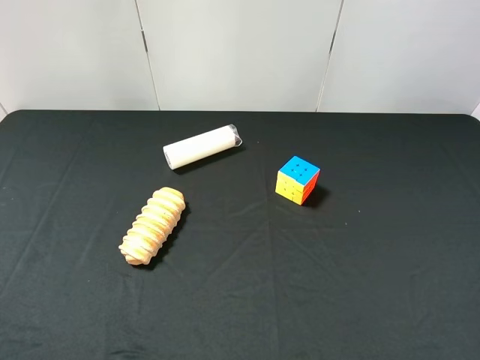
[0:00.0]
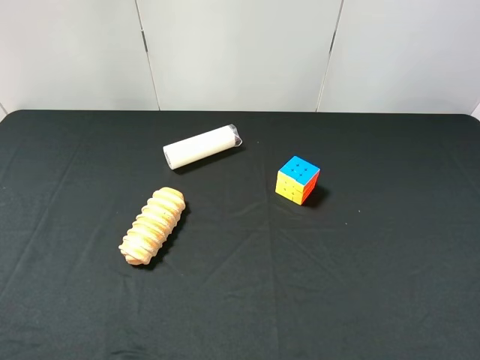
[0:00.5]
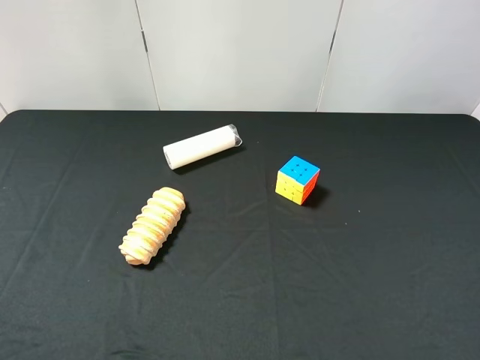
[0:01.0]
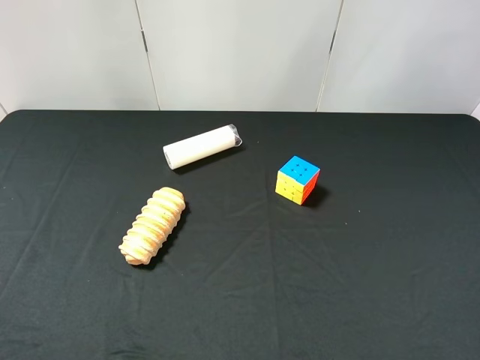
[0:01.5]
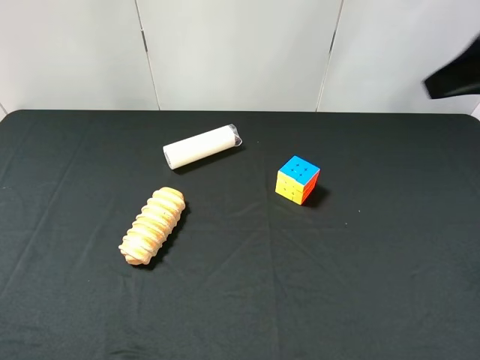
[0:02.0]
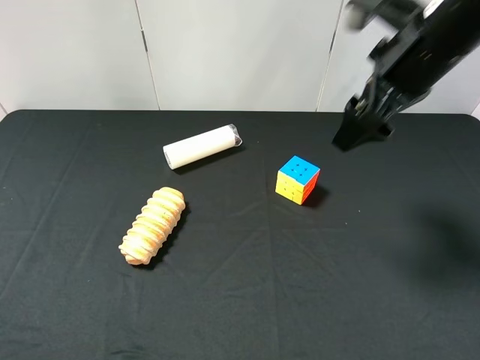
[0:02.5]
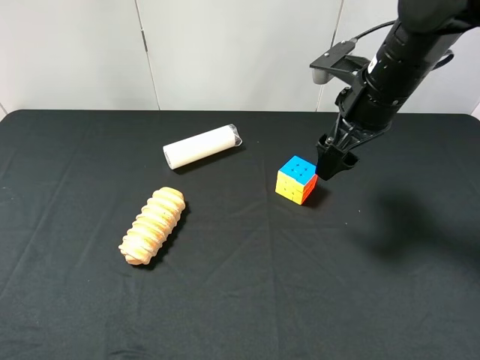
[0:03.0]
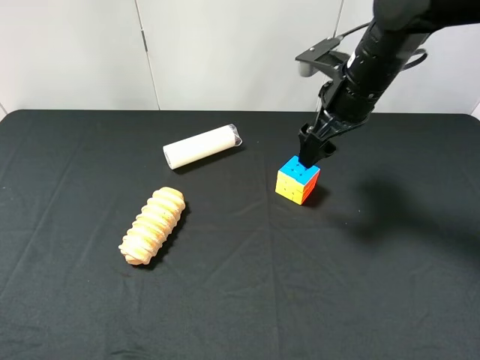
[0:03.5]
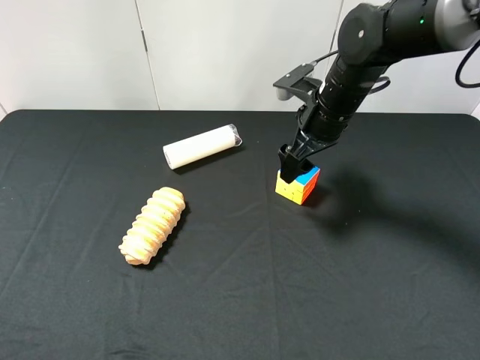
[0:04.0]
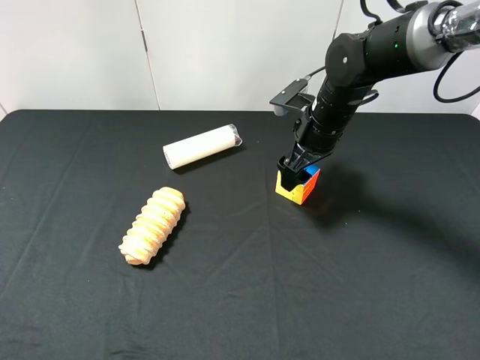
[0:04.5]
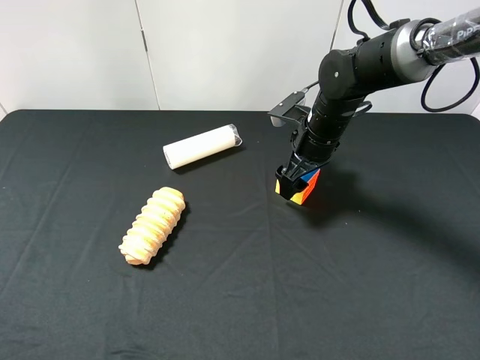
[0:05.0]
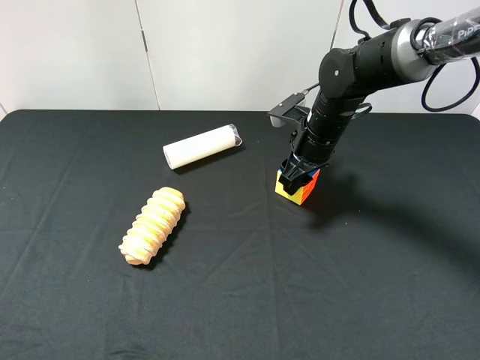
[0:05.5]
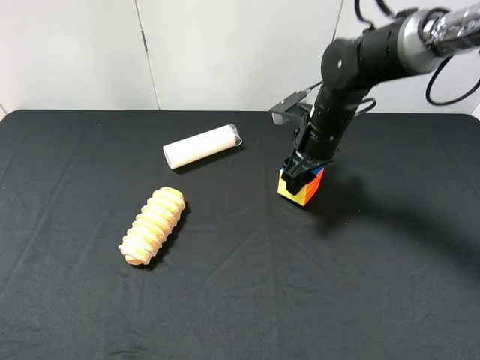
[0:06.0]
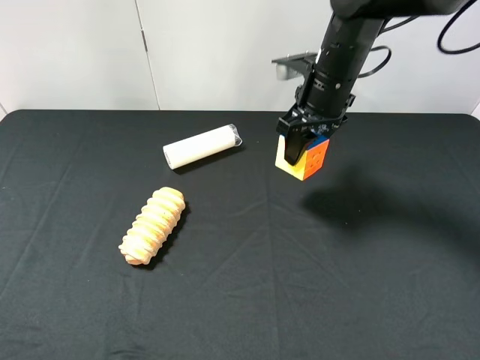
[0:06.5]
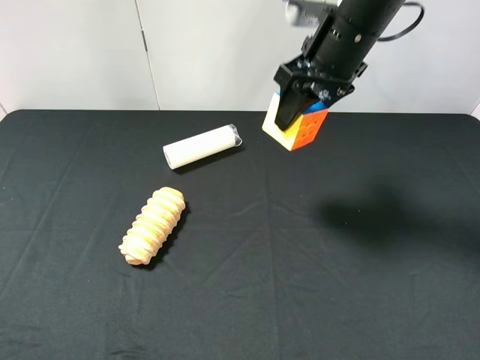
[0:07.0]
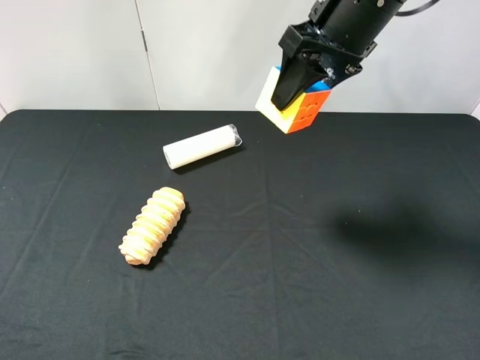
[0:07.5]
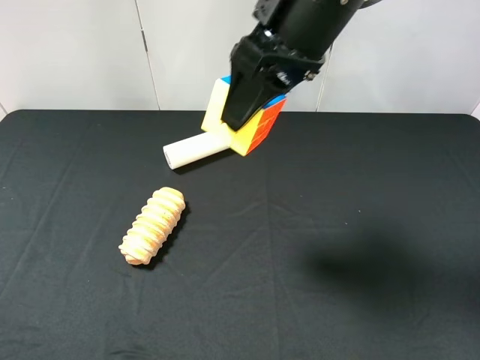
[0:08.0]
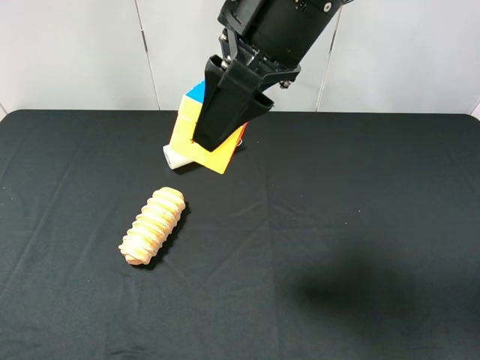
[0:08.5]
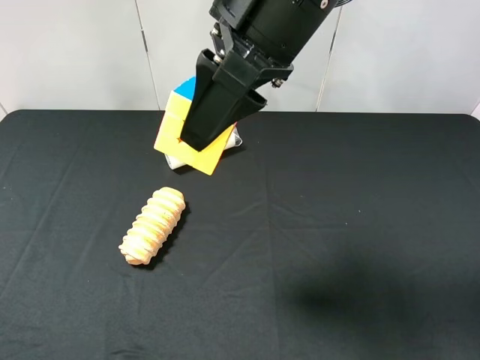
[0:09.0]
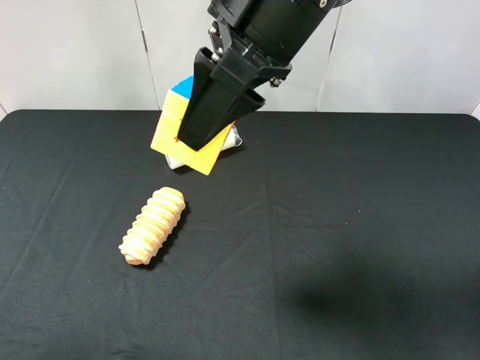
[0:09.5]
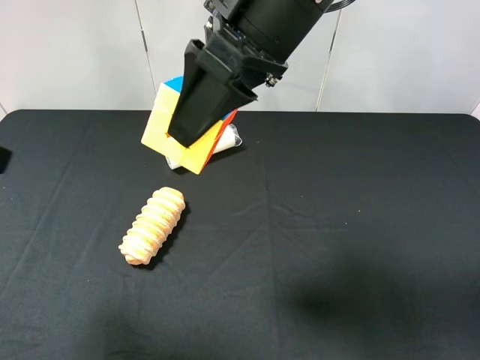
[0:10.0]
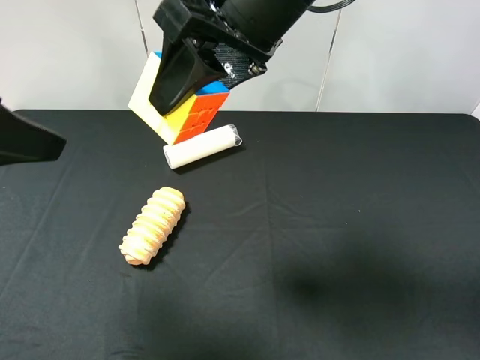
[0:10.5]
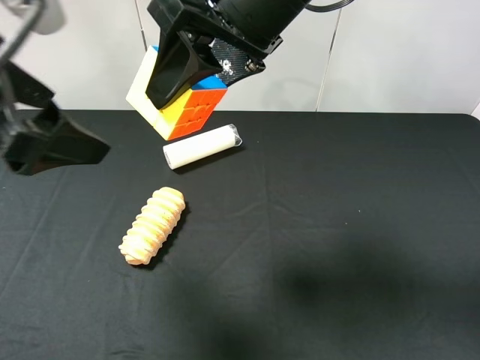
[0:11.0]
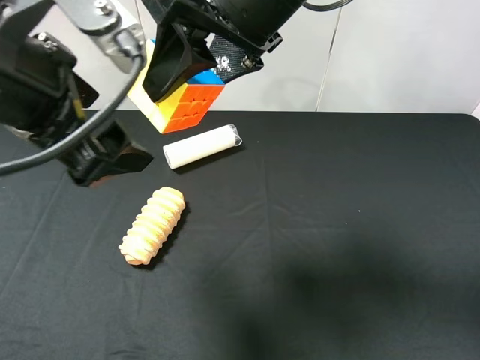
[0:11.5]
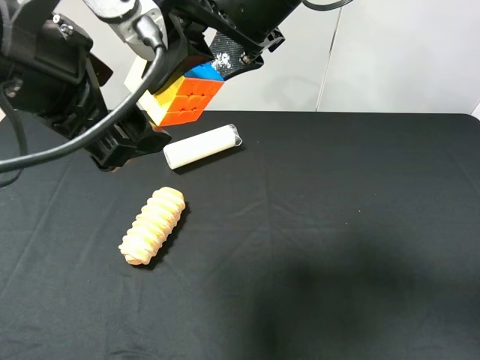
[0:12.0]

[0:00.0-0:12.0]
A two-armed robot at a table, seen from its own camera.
Task of the whole recording: use the right gripper to pick up the item and transfer it from the right gripper to the left gripper.
Step, 0:00.0 to 0:05.5: Use the right gripper to grab the Rubik's Cube on the right side of the table.
0:00.0 to 0:02.0: The right gripper is displaced forward and upward by approximately 25 cm.
0:02.0 to 0:04.0: The right gripper moves downward, forward and to the left, about 25 cm.
0:04.0 to 0:06.0: The right gripper closes.
0:06.0 to 0:08.0: The right gripper goes some 20 cm upward and backward.
0:08.0 to 0:10.0: The left gripper travels forward and upward by roughly 15 cm.
0:10.0 to 0:12.0: The left gripper moves to the right, about 15 cm.

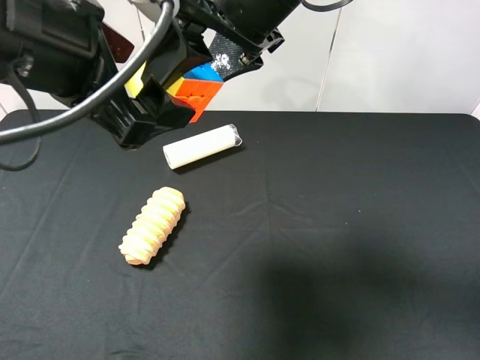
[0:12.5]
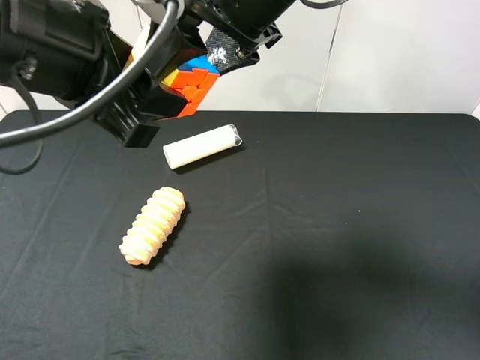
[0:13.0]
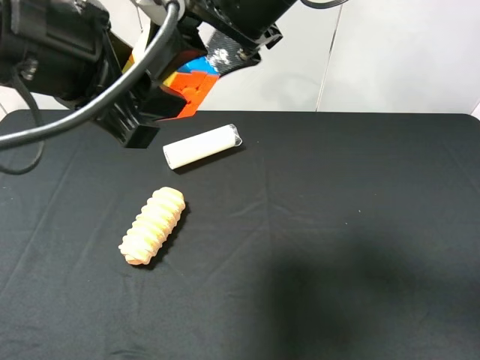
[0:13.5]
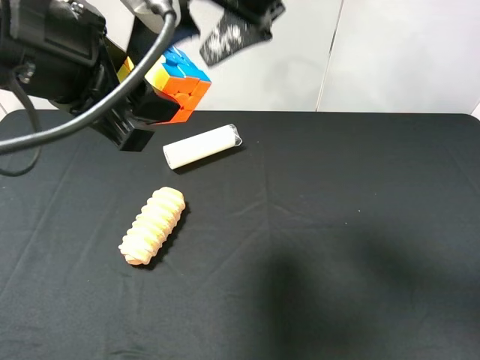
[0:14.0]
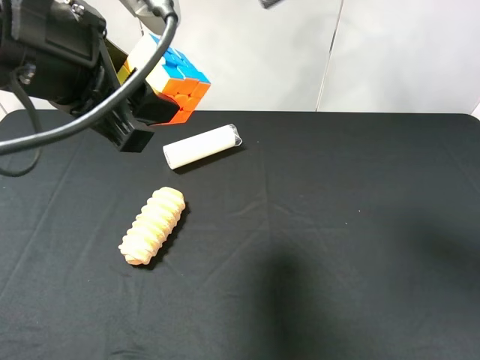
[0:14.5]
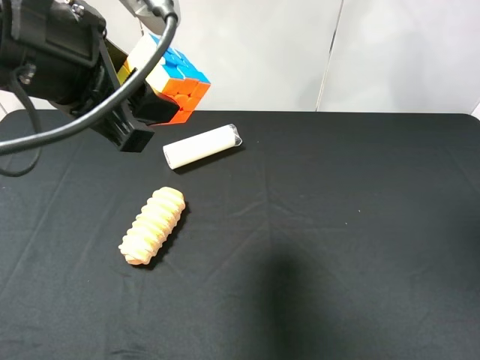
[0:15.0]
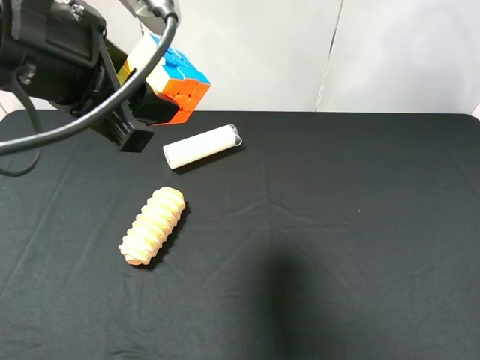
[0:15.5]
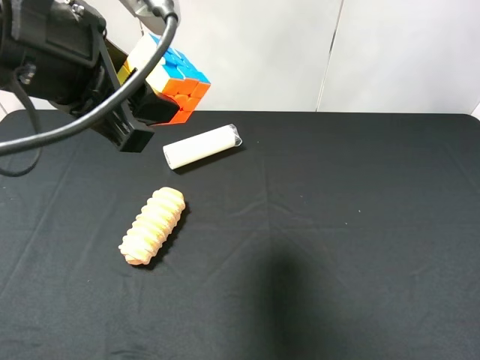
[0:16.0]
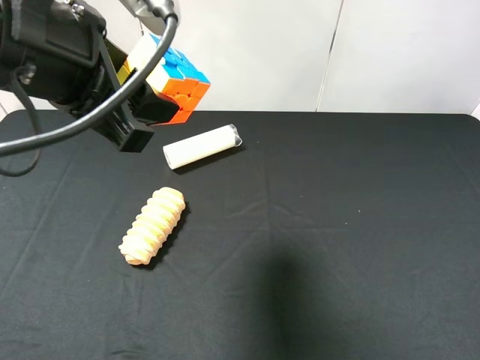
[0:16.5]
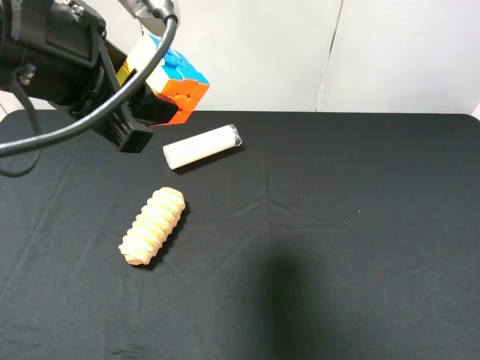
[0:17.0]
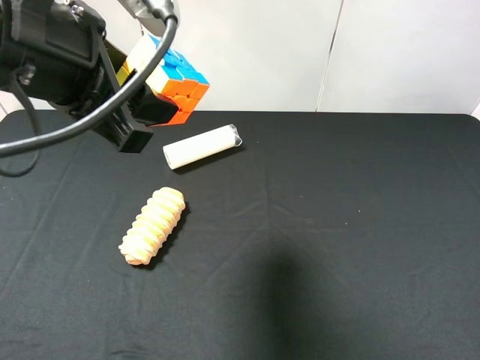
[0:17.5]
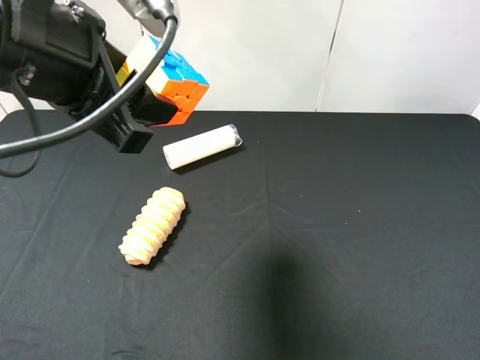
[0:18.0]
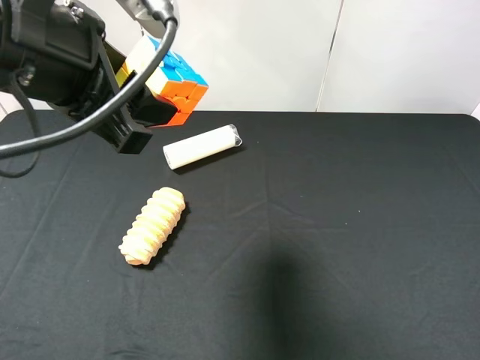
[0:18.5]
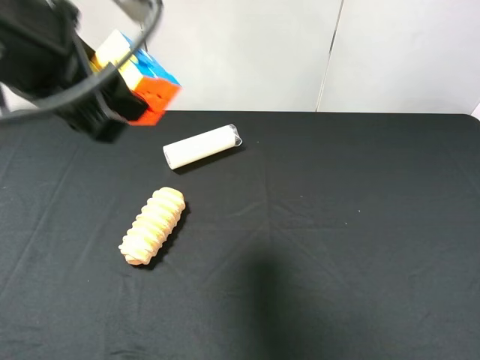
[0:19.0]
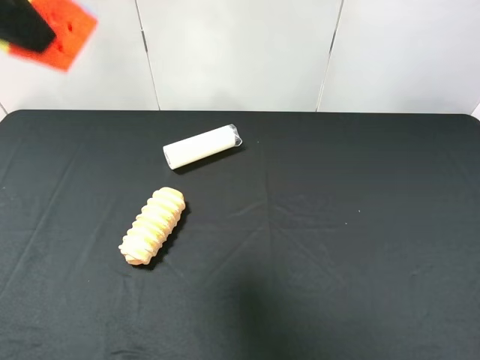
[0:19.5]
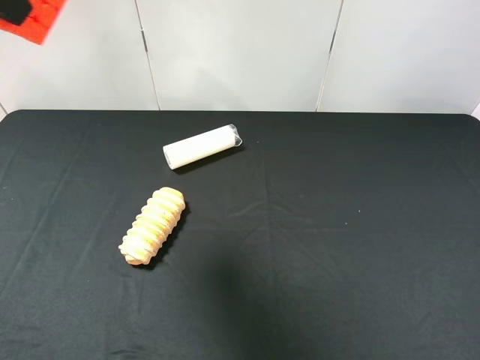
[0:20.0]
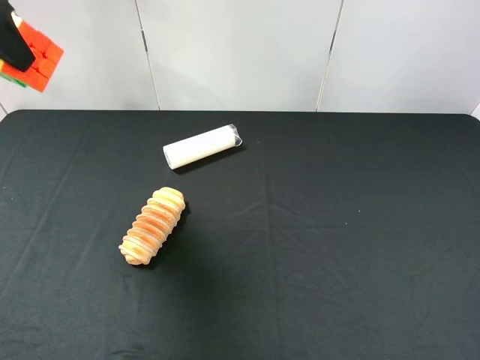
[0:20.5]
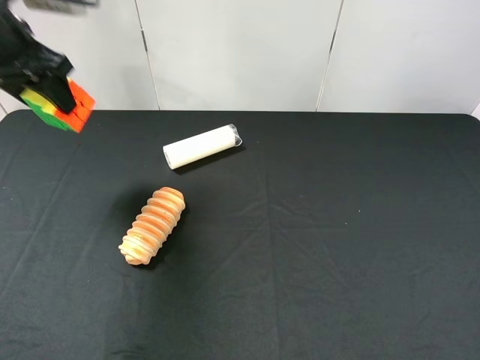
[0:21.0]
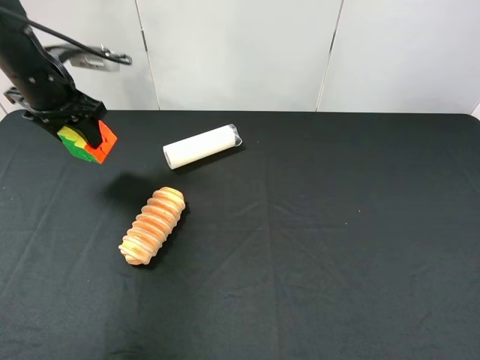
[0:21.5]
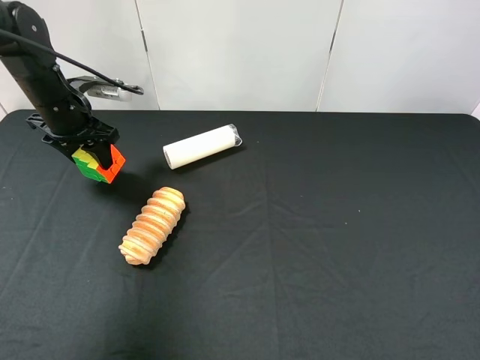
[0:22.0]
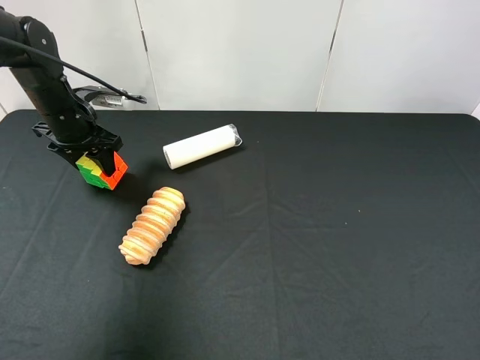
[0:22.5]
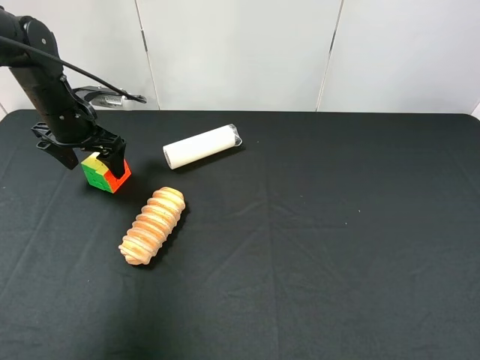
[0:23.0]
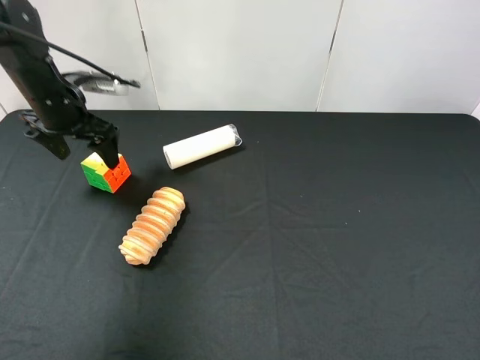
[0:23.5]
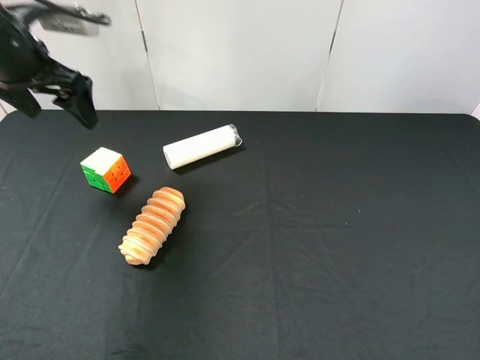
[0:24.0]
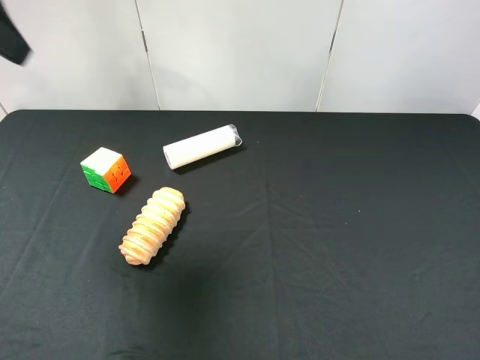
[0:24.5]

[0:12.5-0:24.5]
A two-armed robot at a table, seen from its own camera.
Task of the whole recording: use the right gripper to pick up the item and transfer it from the right gripper to the left gripper.
Step, 0:14.5 to 0:23.0: The left gripper places milk on the left side of the table.
0:12.5 to 0:14.5: The left gripper closes up; the right gripper heads to the right and upward, covering about 10 cm, and opens its fingers.
0:14.5 to 0:16.5: The right gripper goes approximately 35 cm backward, to the right and downward.
0:18.5 to 0:20.5: The left gripper heads to the left and forward, covering some 15 cm.
0:20.5 to 0:22.5: The left gripper shifts approximately 25 cm downward and forward.
0:22.5 to 0:24.5: The left gripper is displaced upward and backward by some 30 cm, and opens its fingers.
